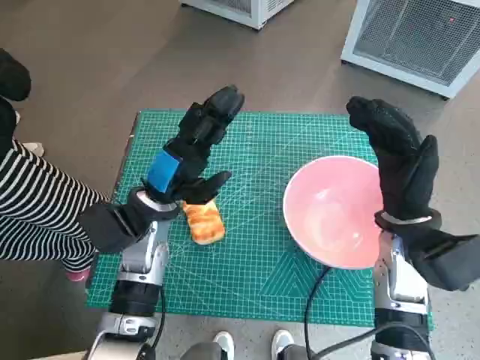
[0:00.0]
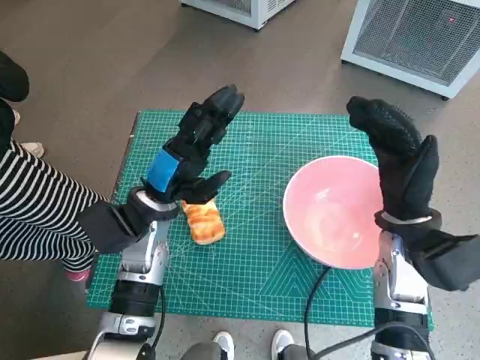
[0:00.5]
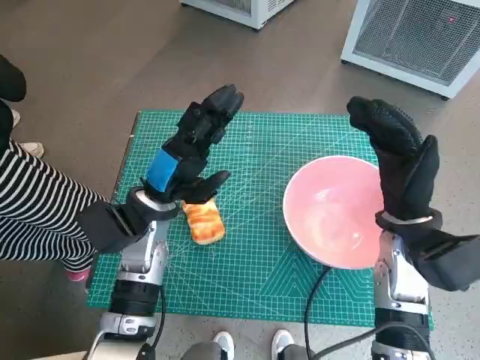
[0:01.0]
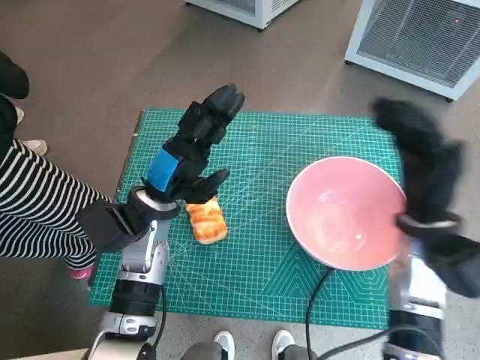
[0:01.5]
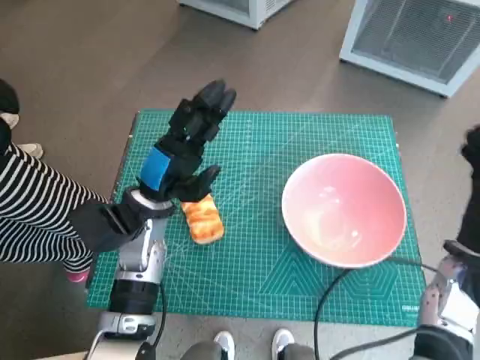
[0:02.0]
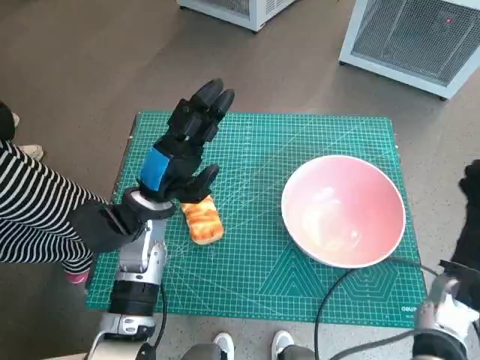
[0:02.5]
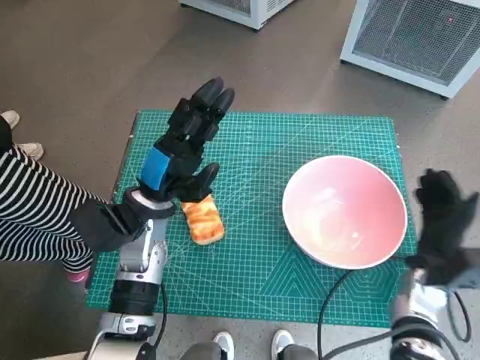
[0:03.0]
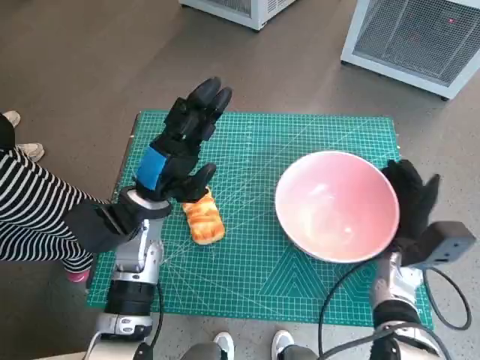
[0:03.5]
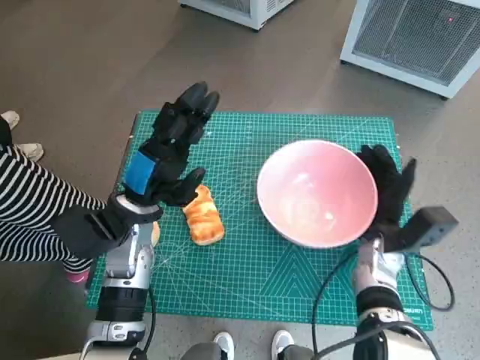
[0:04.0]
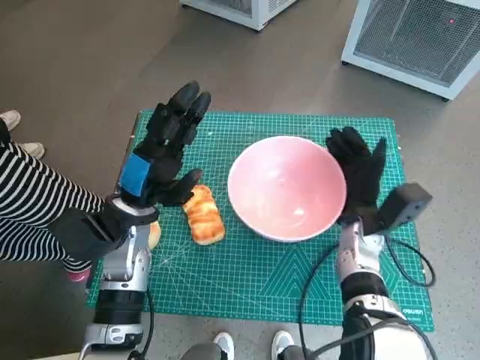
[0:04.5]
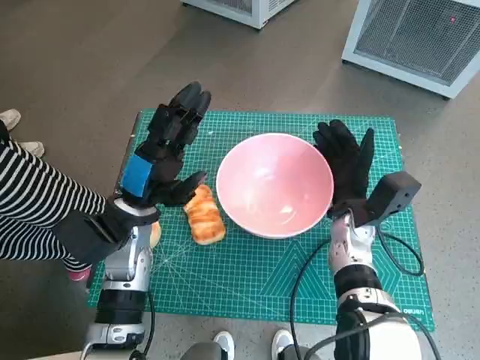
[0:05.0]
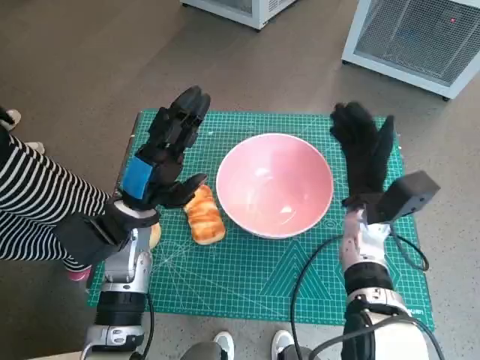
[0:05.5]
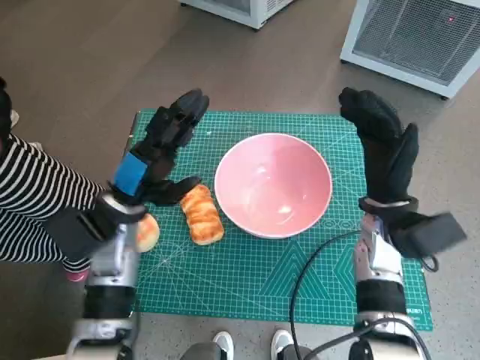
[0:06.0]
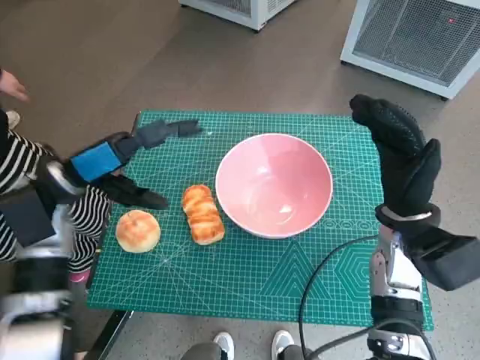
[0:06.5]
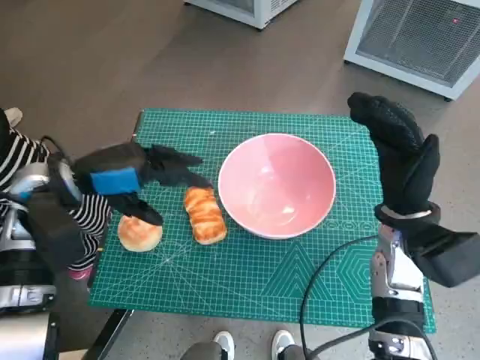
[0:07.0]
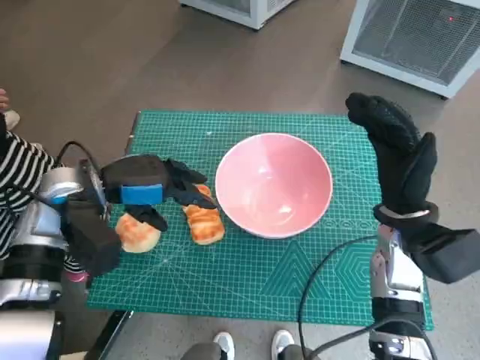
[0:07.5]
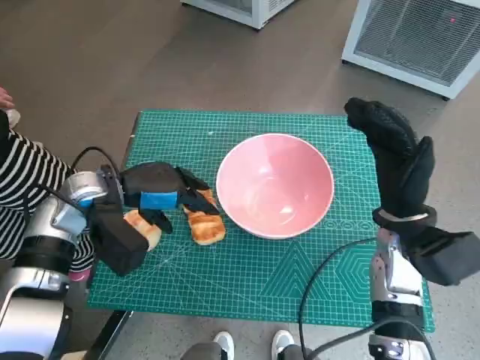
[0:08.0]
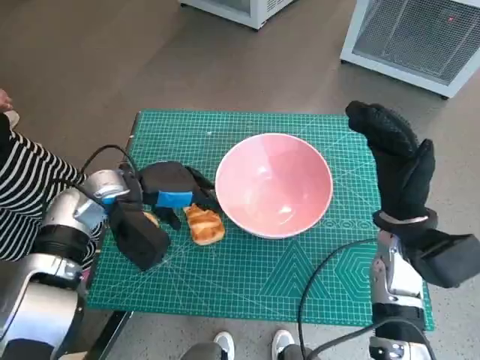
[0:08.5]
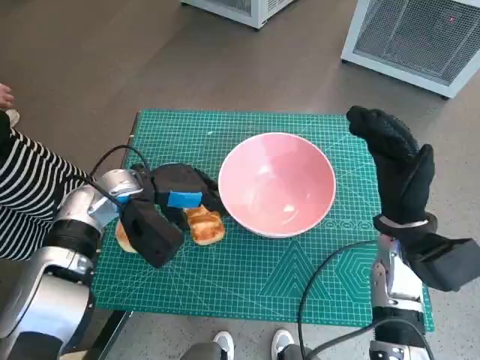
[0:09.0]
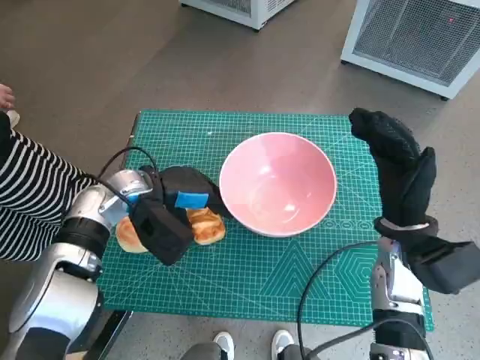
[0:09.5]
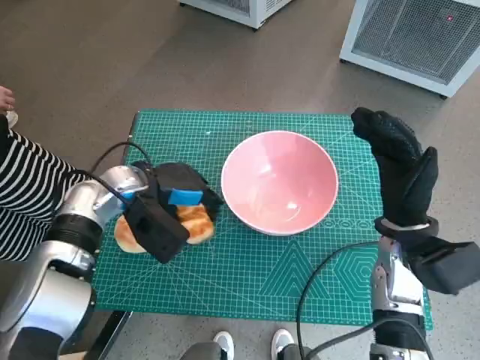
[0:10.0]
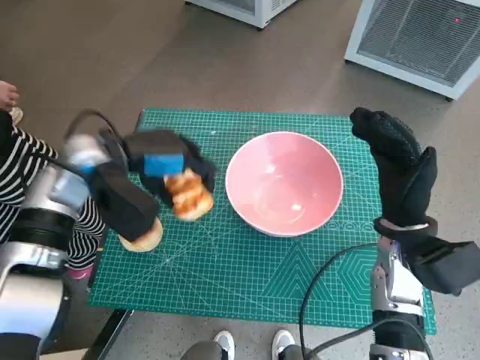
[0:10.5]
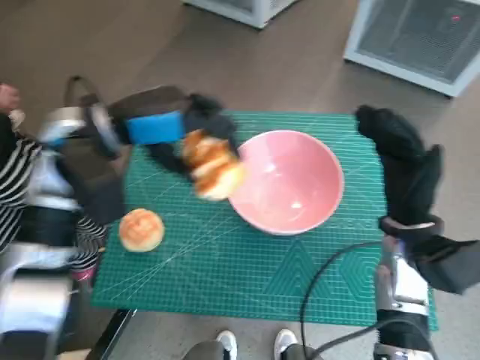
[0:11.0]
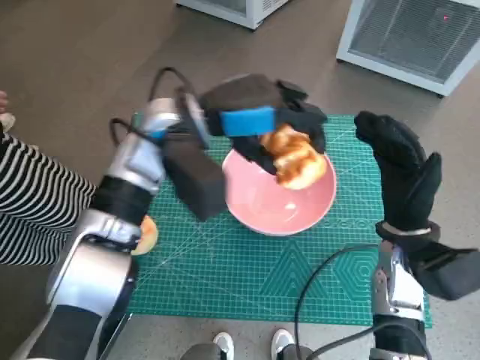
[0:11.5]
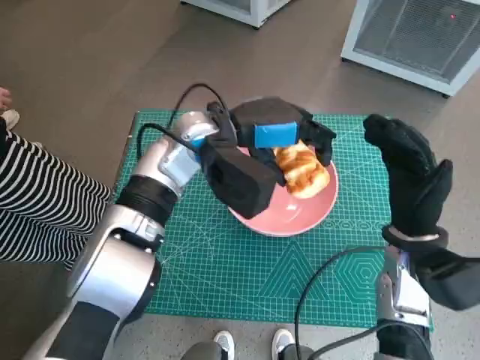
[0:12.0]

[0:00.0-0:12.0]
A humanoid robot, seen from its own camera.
Task of the whole recording: Push the bowl into the center of the table and put the bread into the bowl.
Step, 0:00.0 to 0:05.0: Move the pink bowl to the center of table with right hand.
Step, 0:05.5 to 0:10.0: Grasp the long bread with left hand.
0:02.0 to 0:04.0: The right hand heads downward and to the left, covering approximately 10 cm.
0:04.0 to 0:06.0: The right hand goes some 10 cm upward.
0:08.0 to 0:10.0: The left hand shifts by approximately 5 cm.
0:10.0 to 0:12.0: The left hand shifts roughly 15 cm to the right and upward.

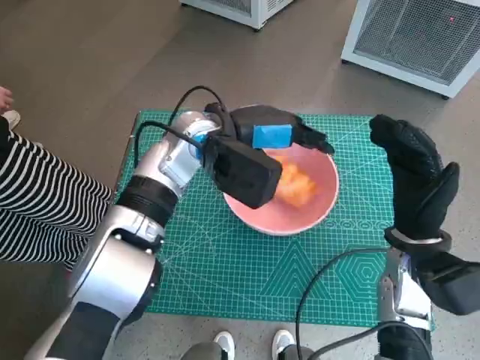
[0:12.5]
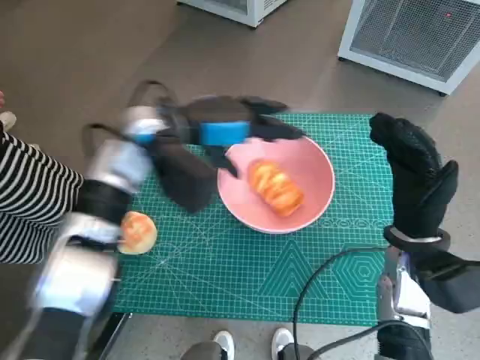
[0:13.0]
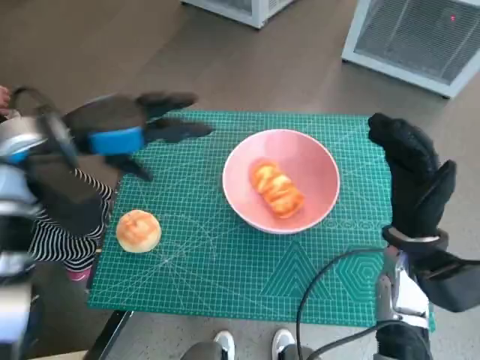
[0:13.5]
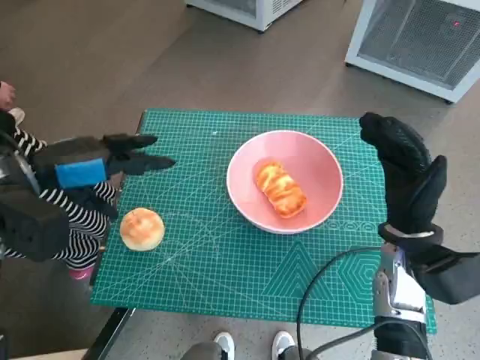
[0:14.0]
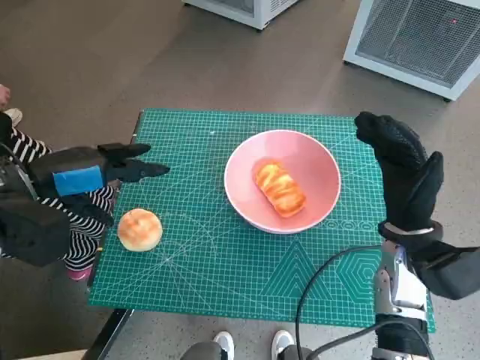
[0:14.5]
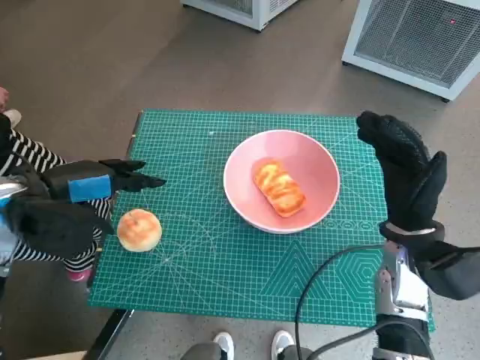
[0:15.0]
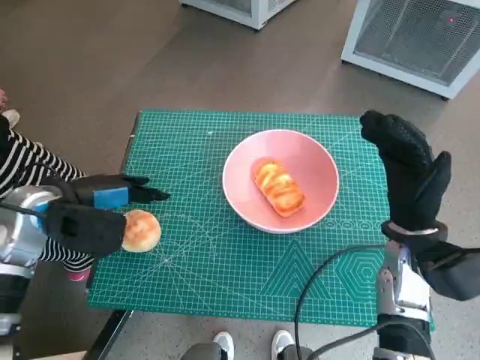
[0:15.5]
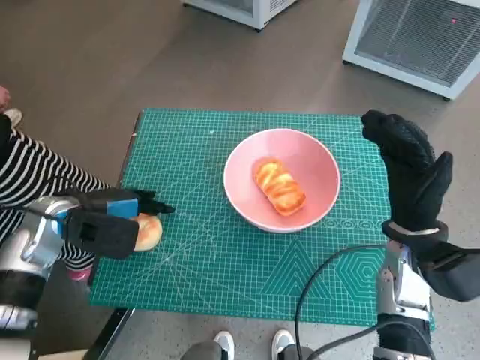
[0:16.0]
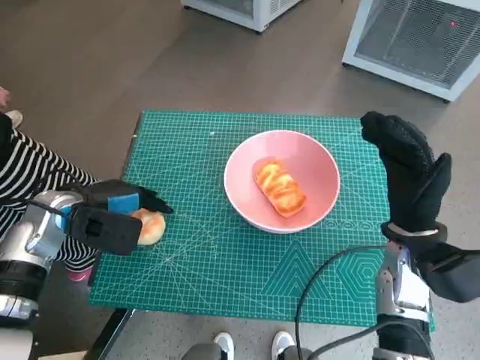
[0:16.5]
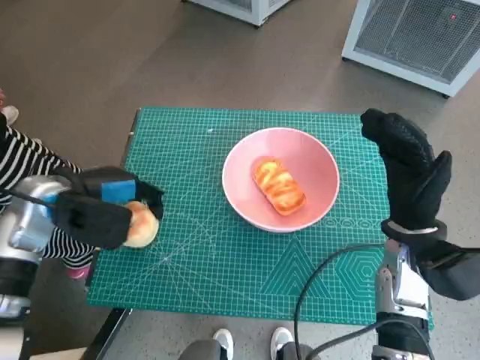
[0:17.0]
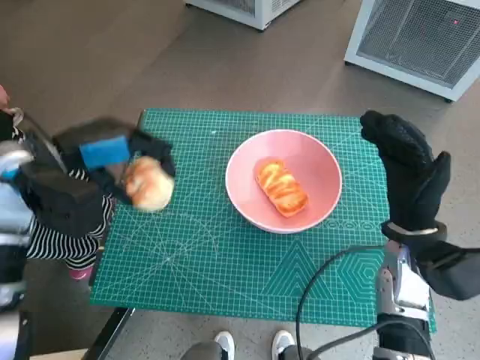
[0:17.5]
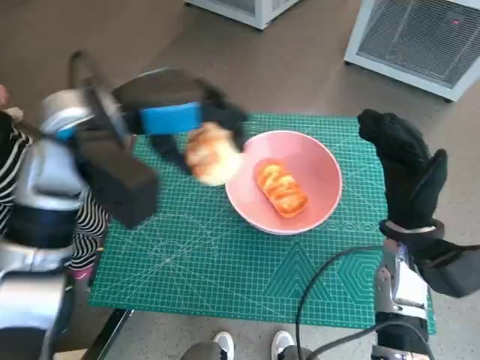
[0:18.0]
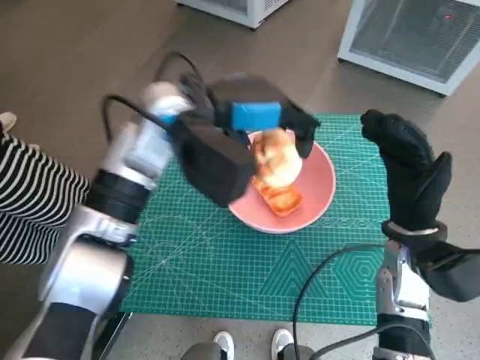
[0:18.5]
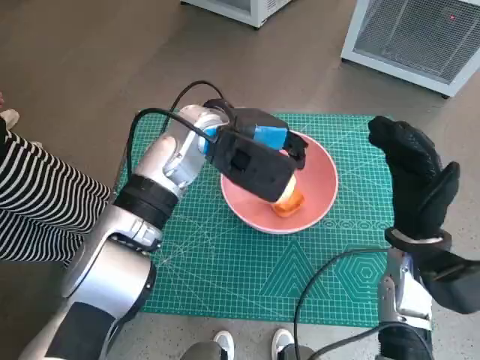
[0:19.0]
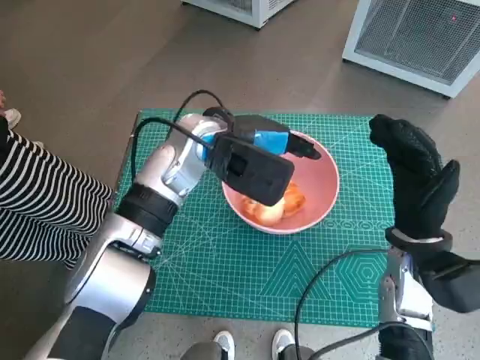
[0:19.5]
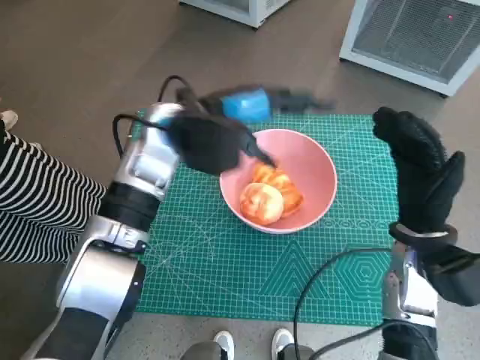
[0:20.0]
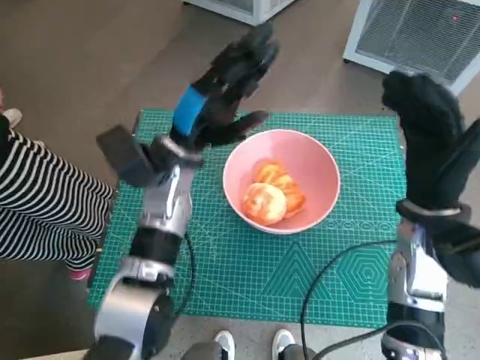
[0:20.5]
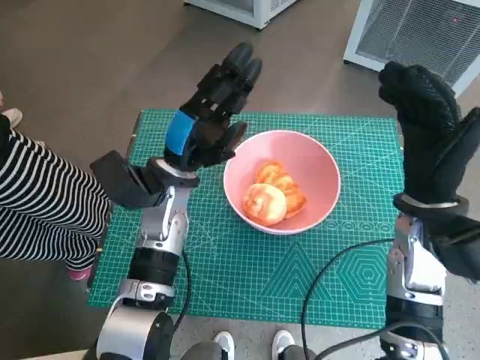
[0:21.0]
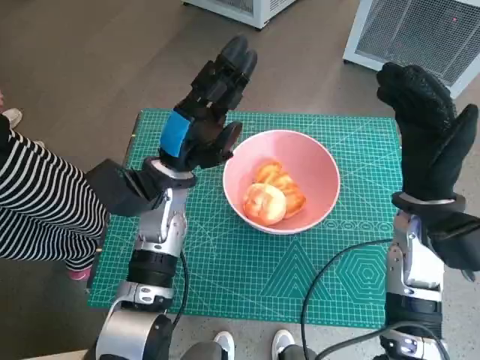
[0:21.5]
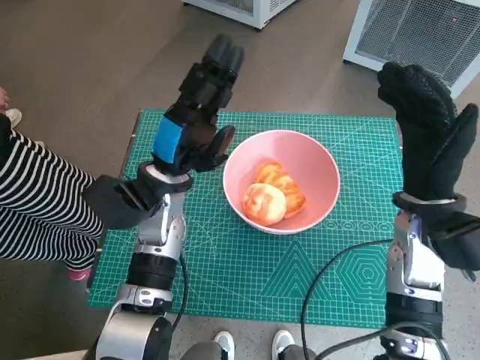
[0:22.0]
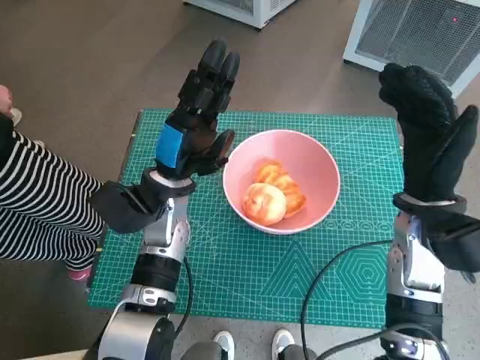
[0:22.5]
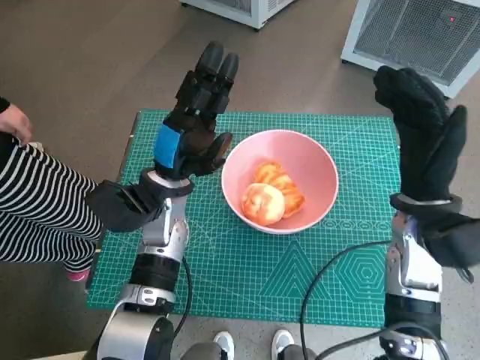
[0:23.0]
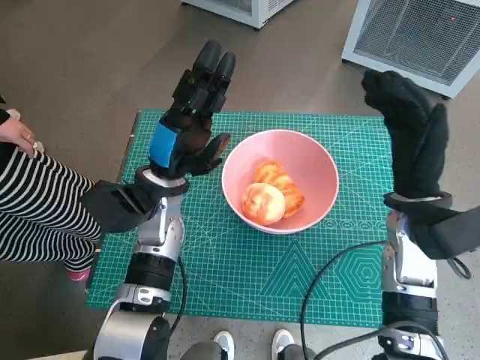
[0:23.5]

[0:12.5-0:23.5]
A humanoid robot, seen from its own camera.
Task of the whole recording: Push the bowl into the center of the table and put the bread into the bowl.
Step, 0:13.0 to 0:16.5: Grasp the round bread with left hand.
Step, 0:17.0 to 0:19.5: Place the round bread in pink bowl with left hand.
0:12.5 to 0:14.5: The left hand is displaced to the left and backward by some 25 cm.
0:14.5 to 0:16.0: The left hand goes roughly 10 cm downward.
0:16.0 to 0:18.0: The left hand is displaced upward and to the right by roughly 15 cm.
0:18.0 to 0:20.0: The left hand travels to the right by roughly 10 cm.
0:20.0 to 0:21.5: The left hand is displaced downward by roughly 10 cm.

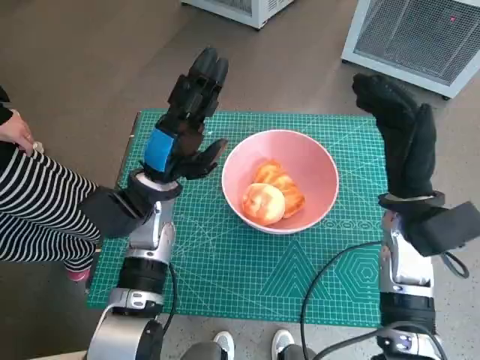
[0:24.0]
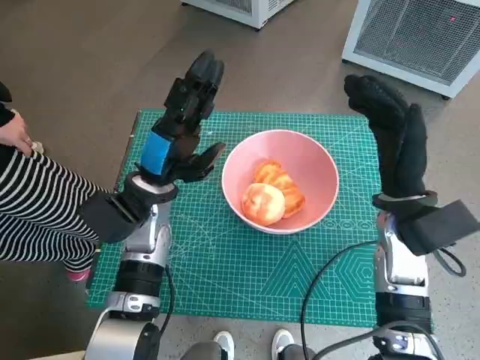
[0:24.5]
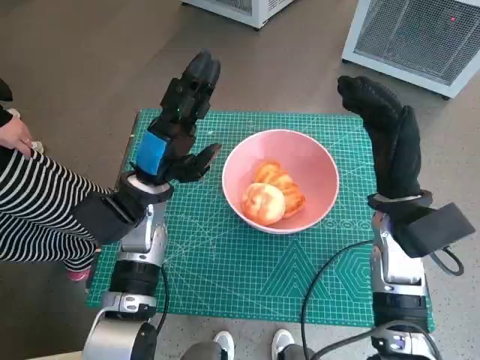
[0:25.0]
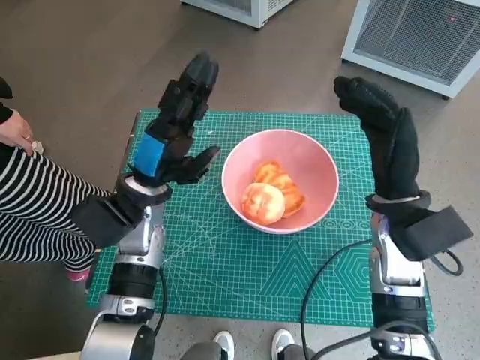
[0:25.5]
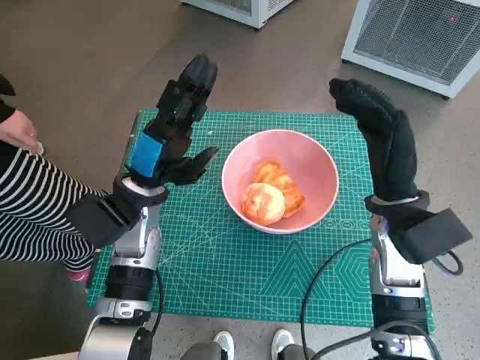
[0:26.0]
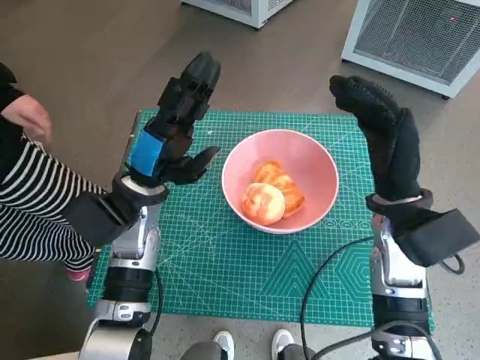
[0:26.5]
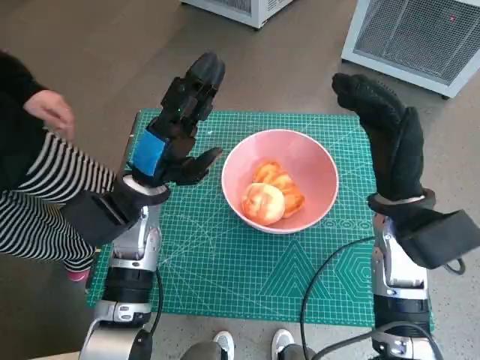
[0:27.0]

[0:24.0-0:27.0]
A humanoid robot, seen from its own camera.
Task of the whole recording: Push the bowl into the center of the table and put the bread into the bowl.
0:24.0 to 0:25.5: The two hands keep their place.
0:25.5 to 0:27.0: The two hands keep their place.
